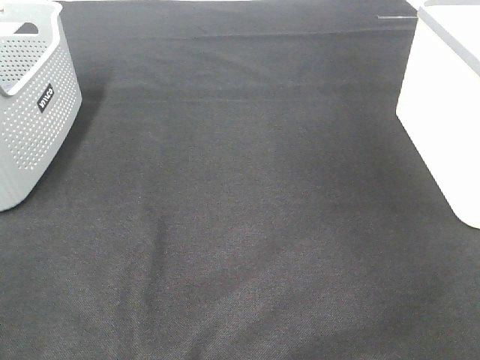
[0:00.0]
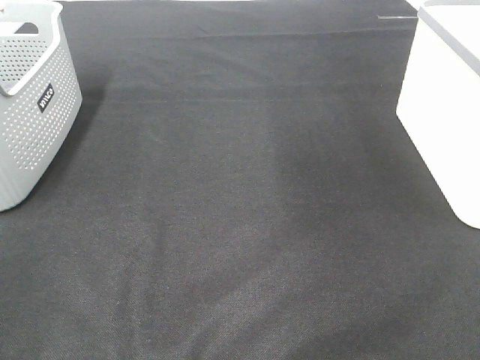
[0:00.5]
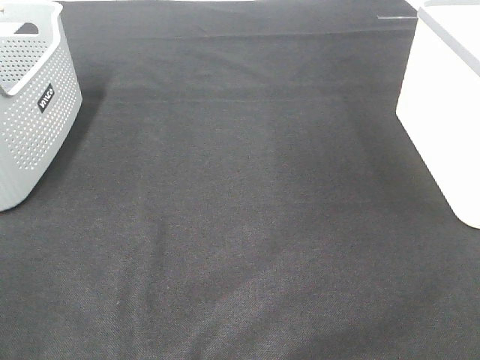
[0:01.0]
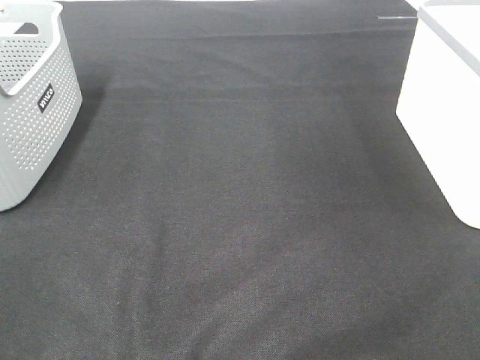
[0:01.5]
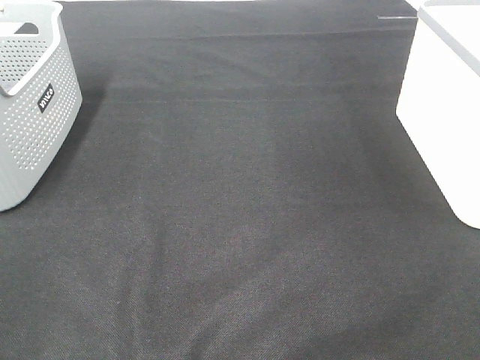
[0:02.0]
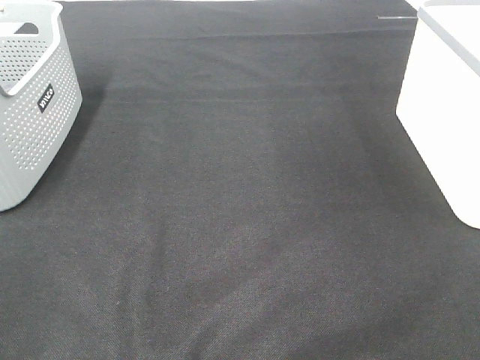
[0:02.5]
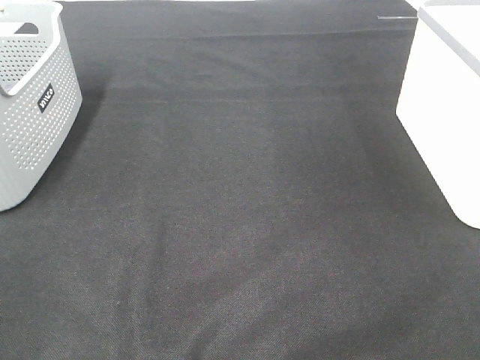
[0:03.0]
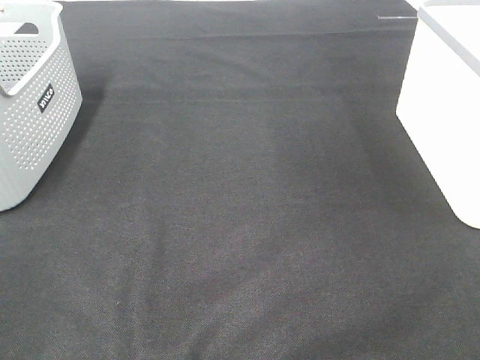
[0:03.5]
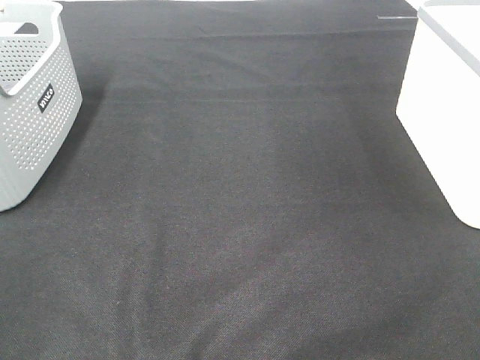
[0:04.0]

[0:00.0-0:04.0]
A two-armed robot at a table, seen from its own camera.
0:02.0 to 0:04.0: The two grippers keep their place.

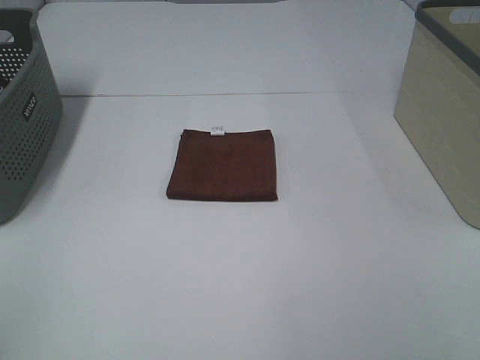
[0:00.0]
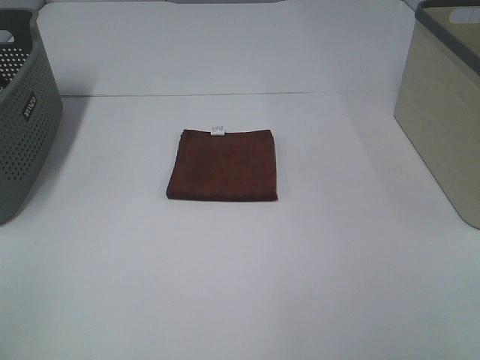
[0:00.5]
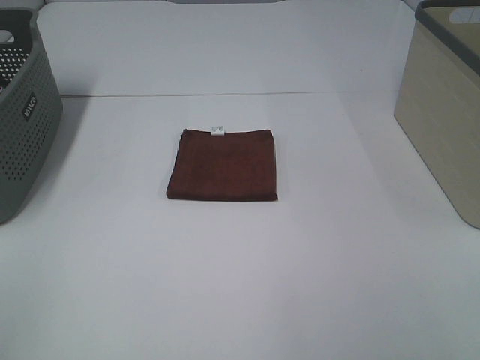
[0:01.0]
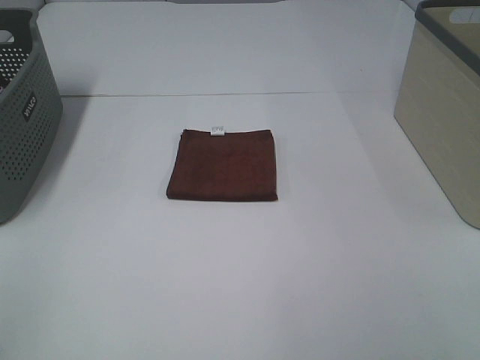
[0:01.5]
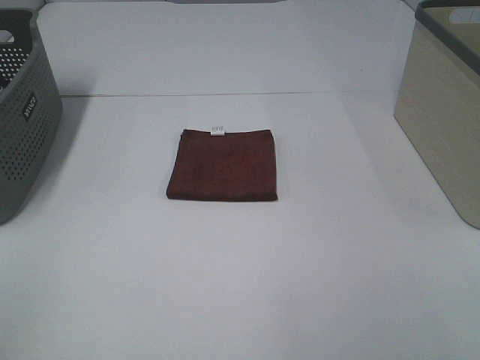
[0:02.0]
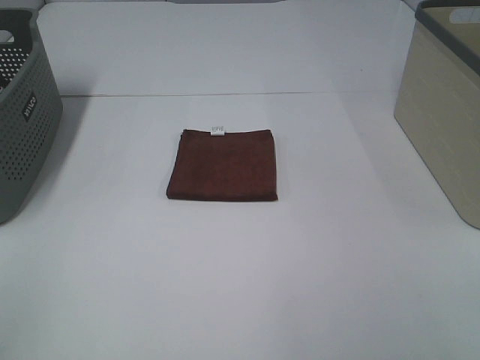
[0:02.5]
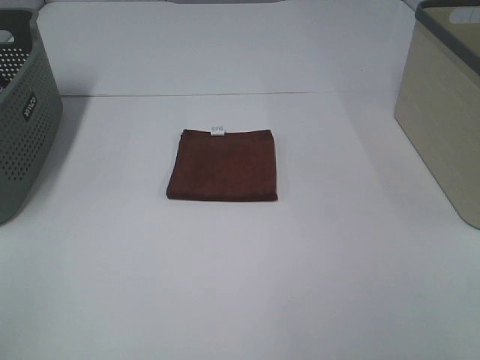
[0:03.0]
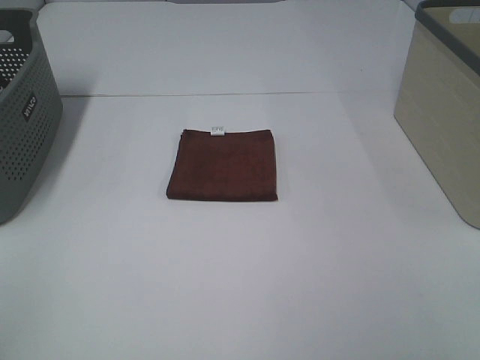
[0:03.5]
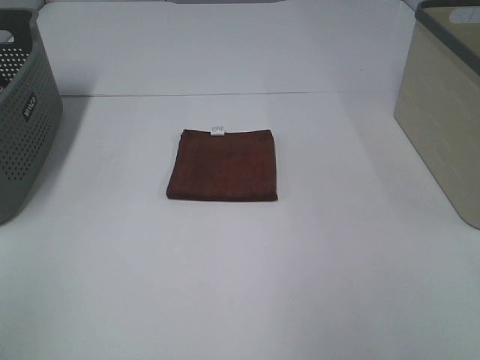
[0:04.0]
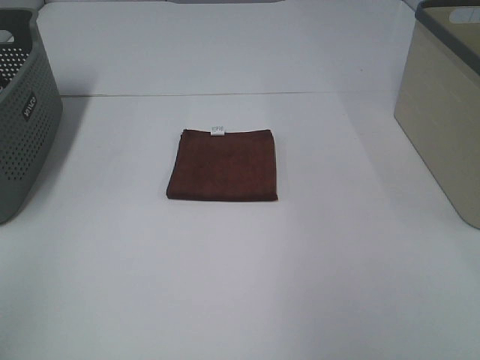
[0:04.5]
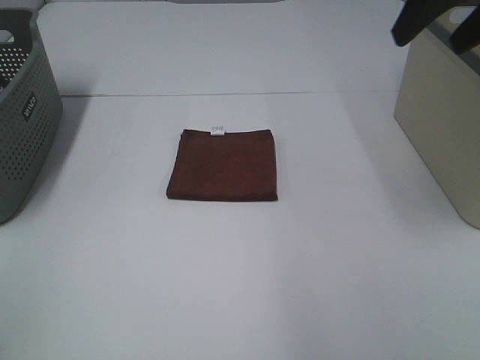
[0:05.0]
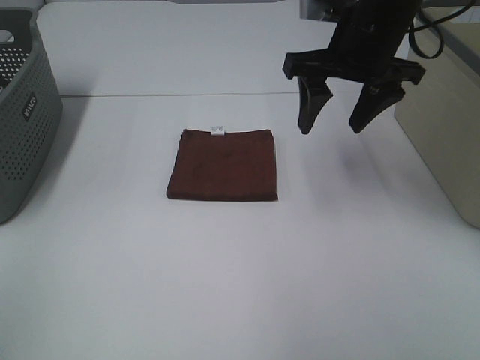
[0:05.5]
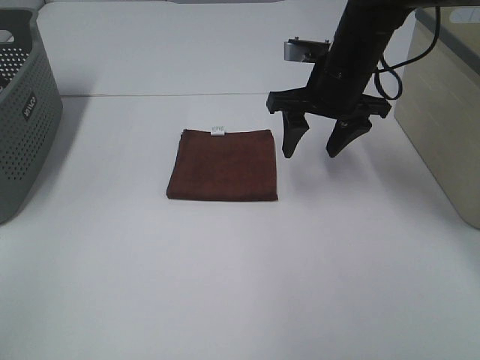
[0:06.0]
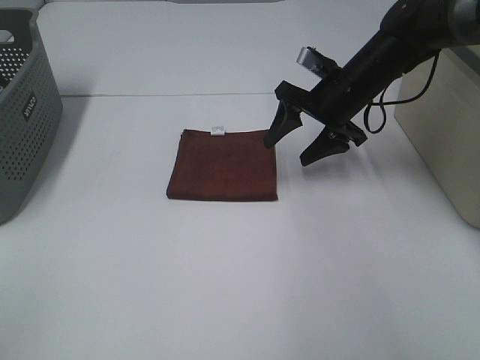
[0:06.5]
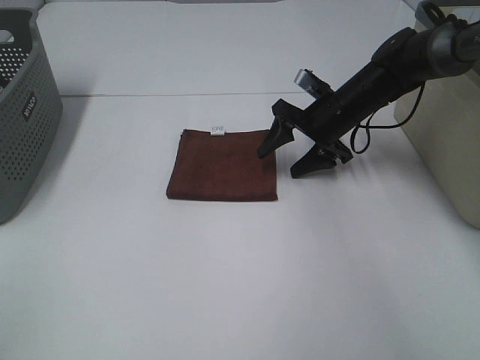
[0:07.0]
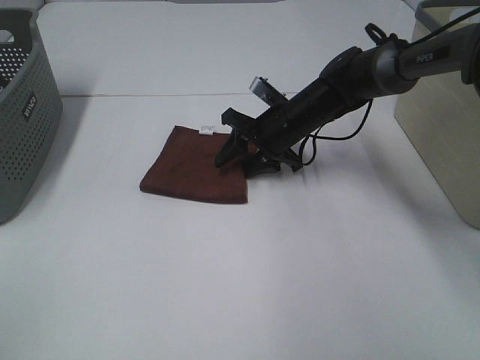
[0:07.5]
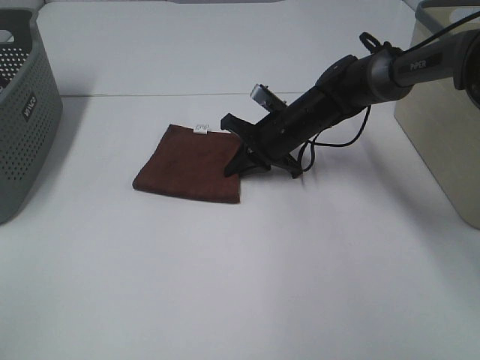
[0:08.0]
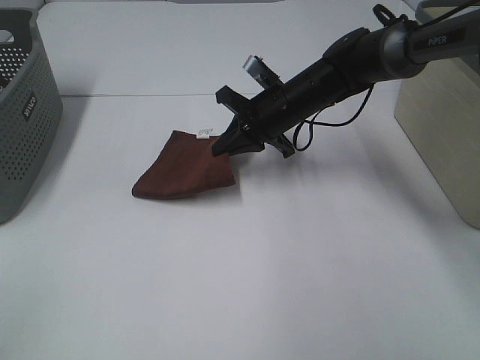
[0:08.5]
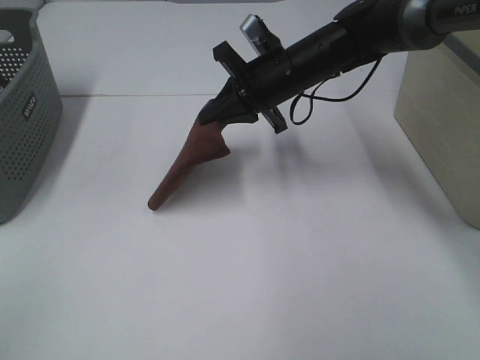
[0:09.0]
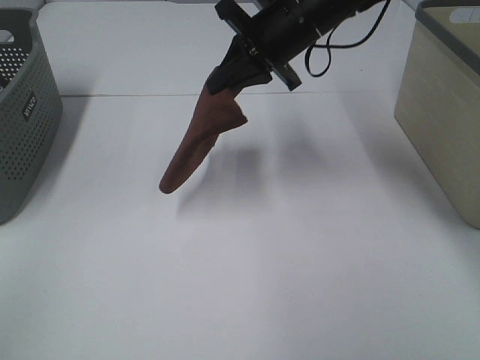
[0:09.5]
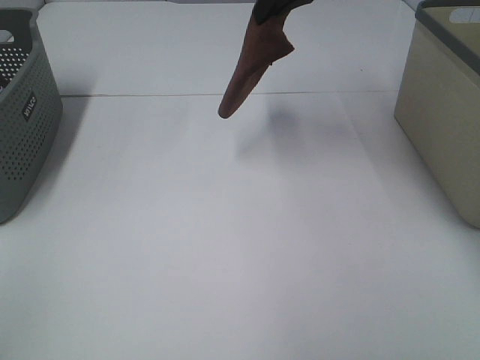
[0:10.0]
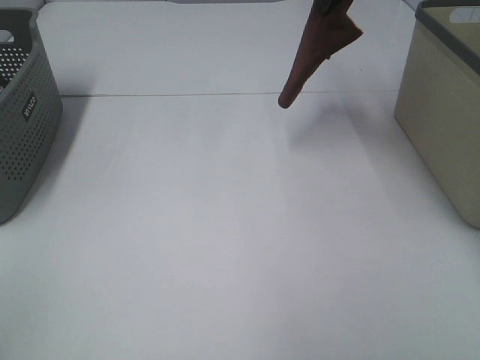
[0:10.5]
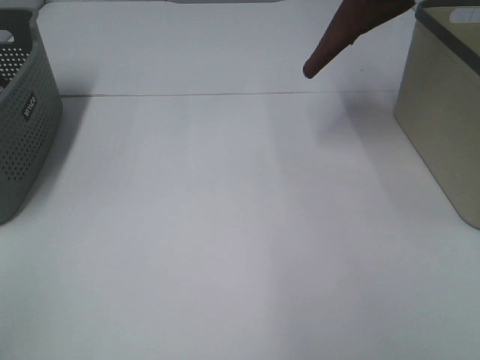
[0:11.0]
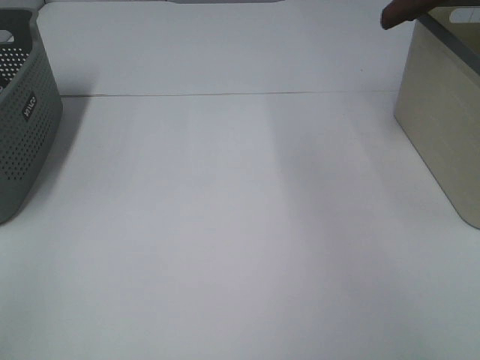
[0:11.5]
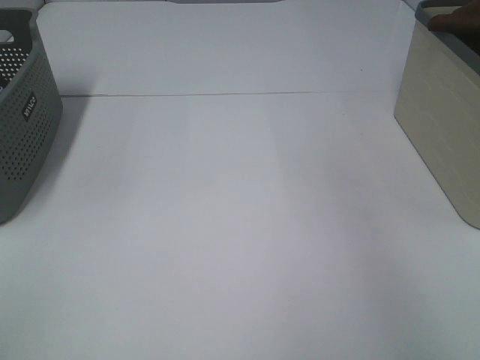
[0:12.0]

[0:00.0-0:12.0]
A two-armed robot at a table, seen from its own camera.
Step, 0:00.0 to 0:07.5: Right hand: grab the folded brown towel.
0:00.0 to 0:02.0: Both grippers stay about where they are.
0:04.0 to 0:06.0: The right gripper heads forward, downward and to the left, covering some 40 cm.
0:06.0 to 0:08.0: The right gripper heads downward, covering some 10 cm, and closes its fingers.
0:08.0 to 0:10.0: The right gripper goes about 25 cm upward.
0:10.0 to 0:12.0: The right gripper is displaced to the right by about 30 cm.

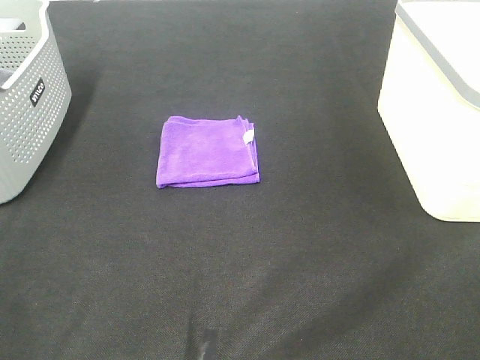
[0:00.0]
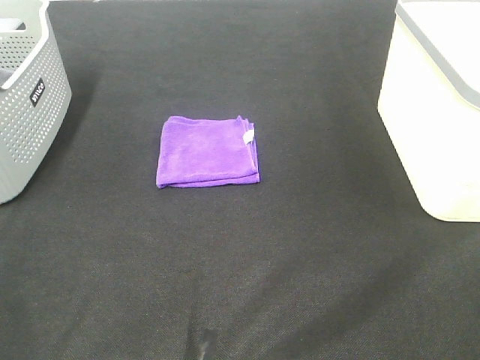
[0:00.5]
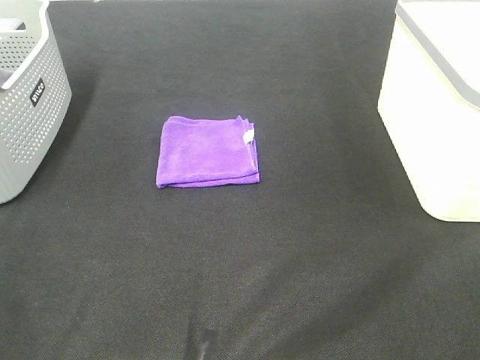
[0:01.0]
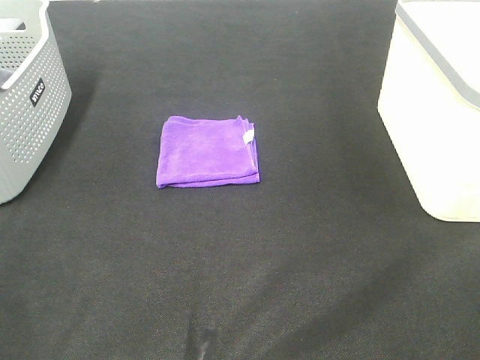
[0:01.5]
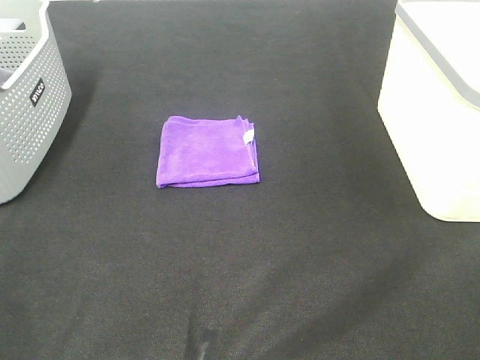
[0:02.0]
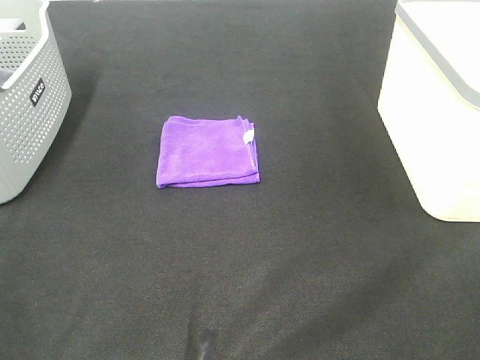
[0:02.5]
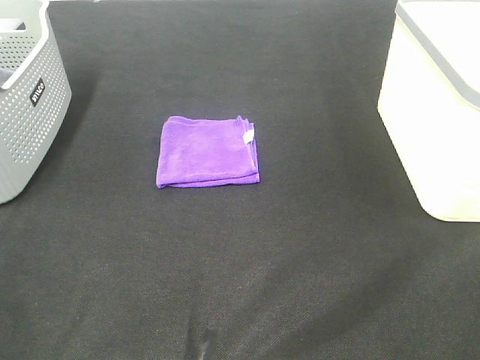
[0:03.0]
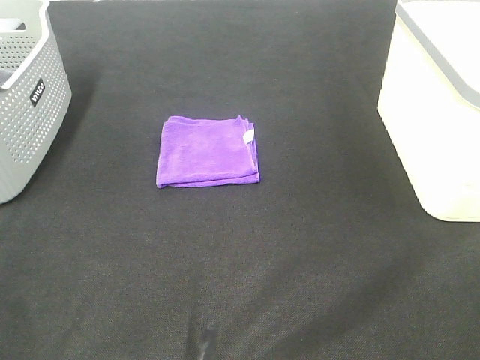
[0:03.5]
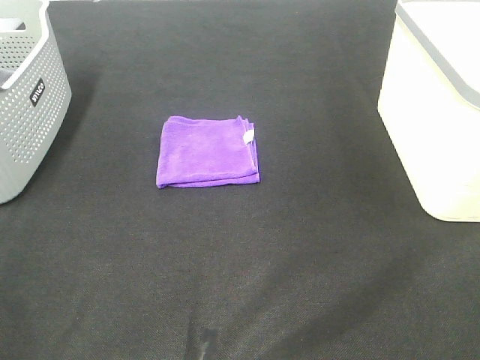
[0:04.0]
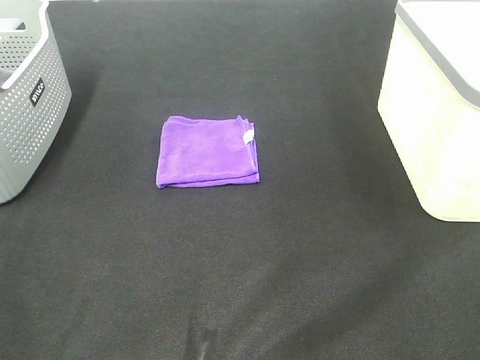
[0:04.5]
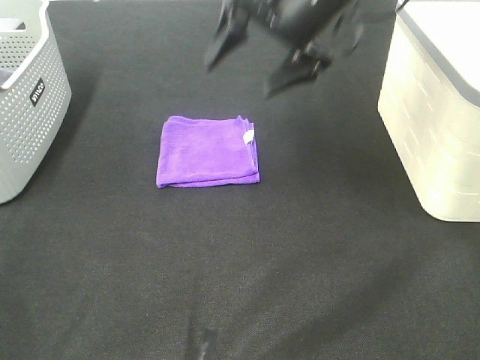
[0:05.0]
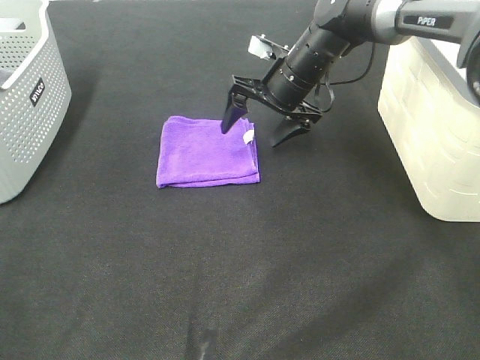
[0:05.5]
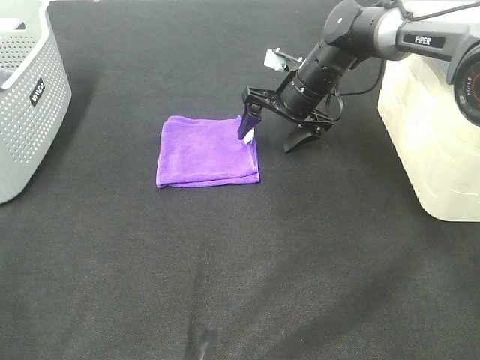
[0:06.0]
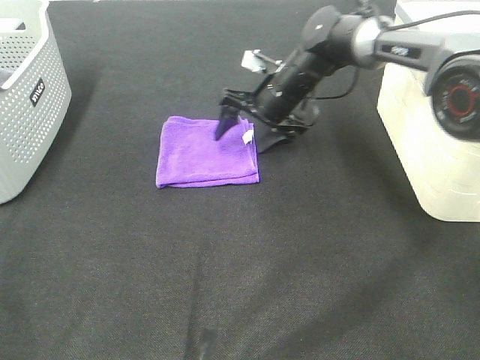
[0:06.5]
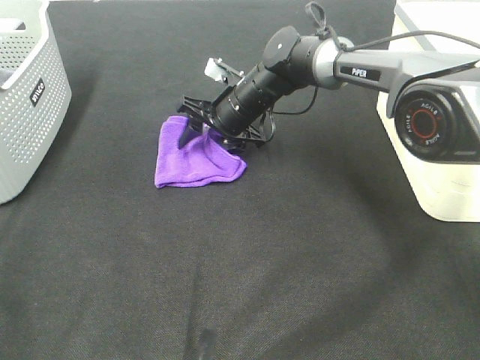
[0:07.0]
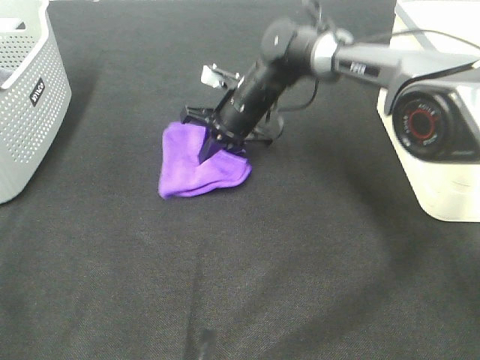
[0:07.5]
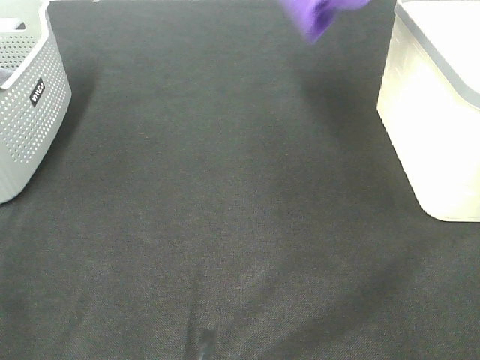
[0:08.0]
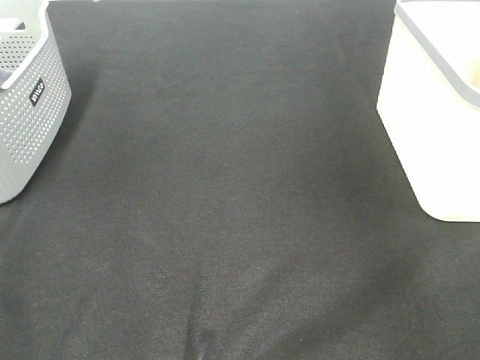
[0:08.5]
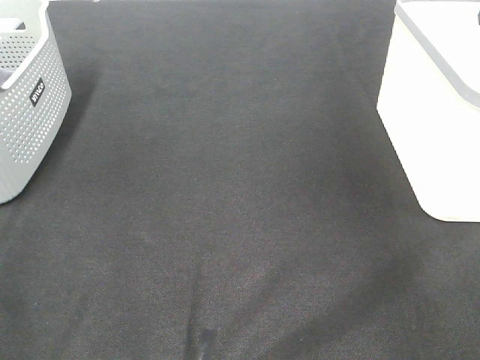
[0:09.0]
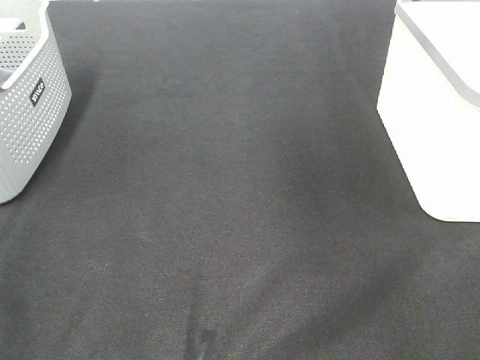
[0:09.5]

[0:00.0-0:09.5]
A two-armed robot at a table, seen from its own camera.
Step, 0:00.0 to 0:07.0: Right hand: grab the folded purple towel.
Step, 0:07.5 to 0:08.5: Right hand: place the purple towel in right basket.
0:04.0 to 0:05.5: The right gripper goes approximately 50 cm forward, downward and to the left.
0:05.5 to 0:07.5: The right gripper shifts roughly 10 cm to the left and downward, and closes its fingers.
0:07.5 to 0:09.5: The right gripper travels to the right and upward by about 40 cm, and opens up.
